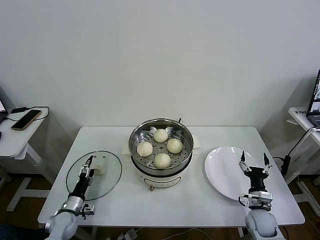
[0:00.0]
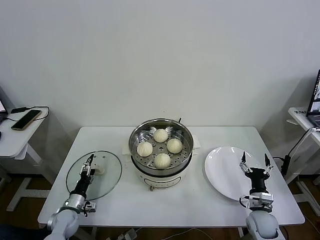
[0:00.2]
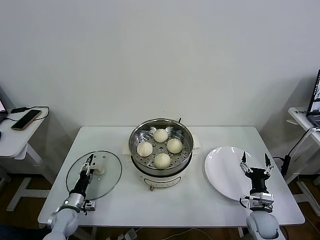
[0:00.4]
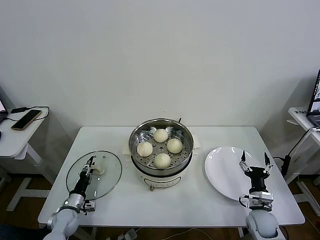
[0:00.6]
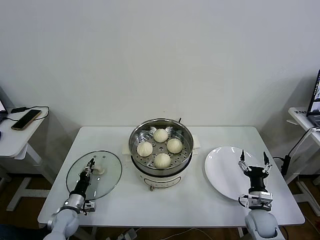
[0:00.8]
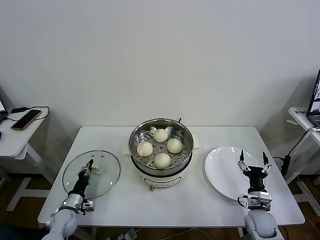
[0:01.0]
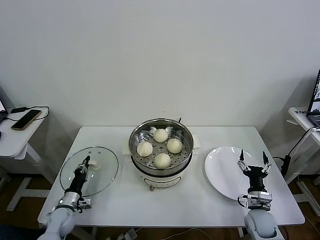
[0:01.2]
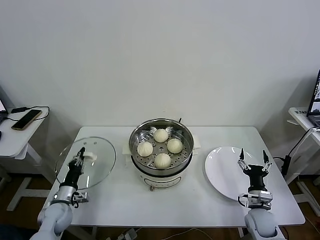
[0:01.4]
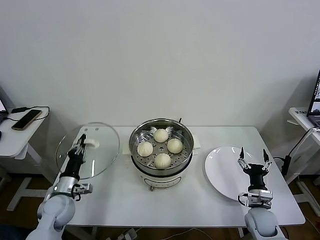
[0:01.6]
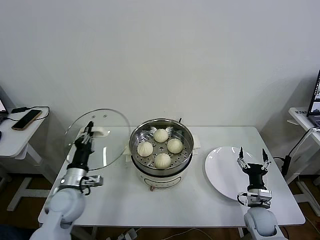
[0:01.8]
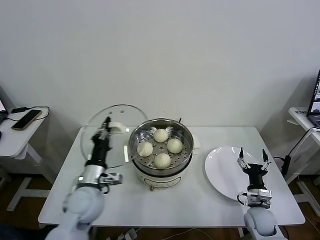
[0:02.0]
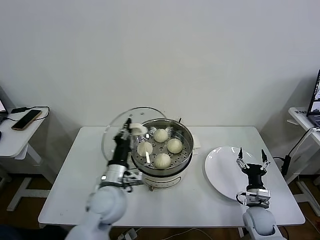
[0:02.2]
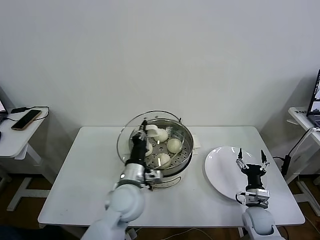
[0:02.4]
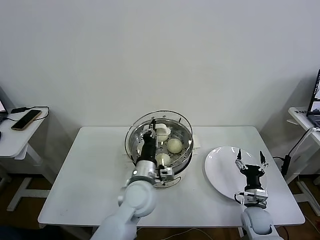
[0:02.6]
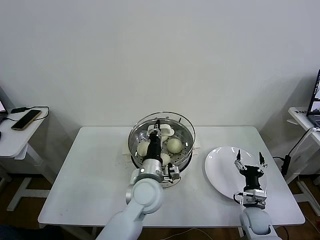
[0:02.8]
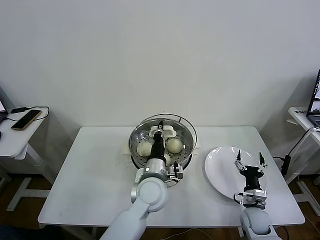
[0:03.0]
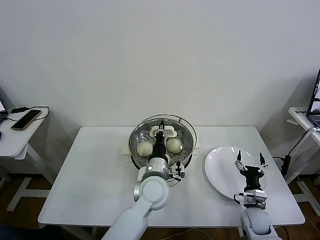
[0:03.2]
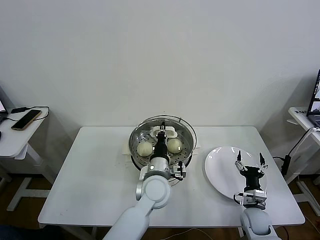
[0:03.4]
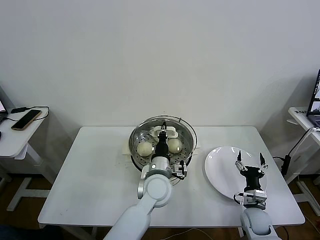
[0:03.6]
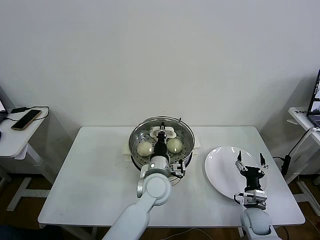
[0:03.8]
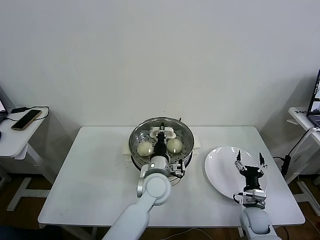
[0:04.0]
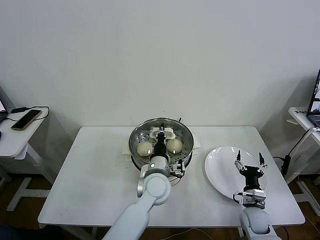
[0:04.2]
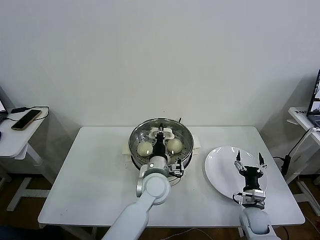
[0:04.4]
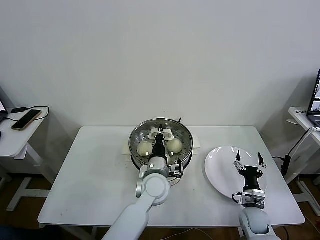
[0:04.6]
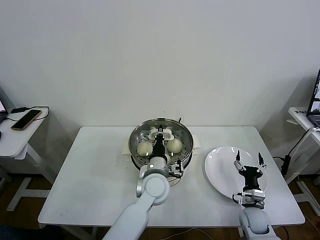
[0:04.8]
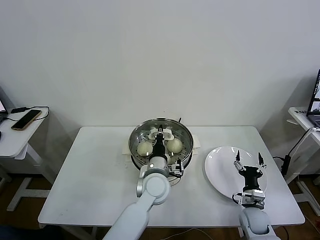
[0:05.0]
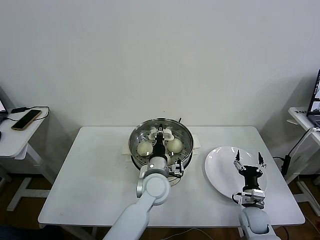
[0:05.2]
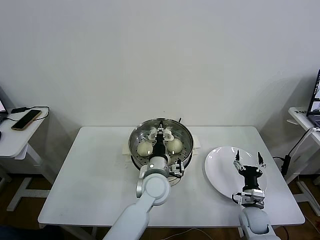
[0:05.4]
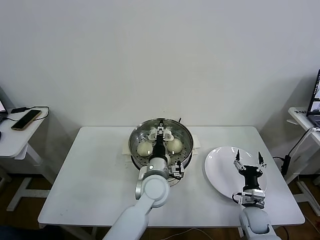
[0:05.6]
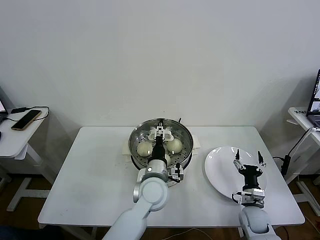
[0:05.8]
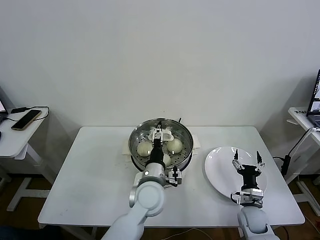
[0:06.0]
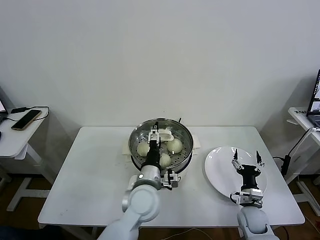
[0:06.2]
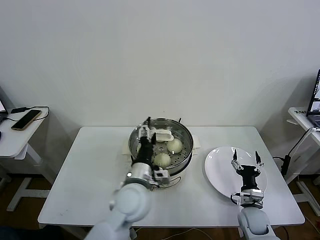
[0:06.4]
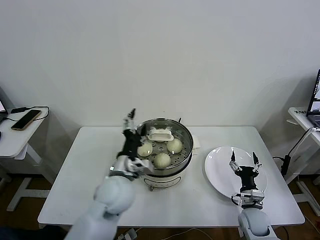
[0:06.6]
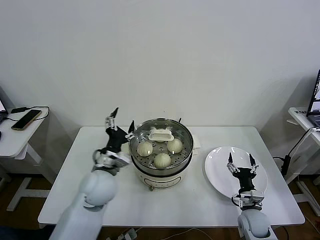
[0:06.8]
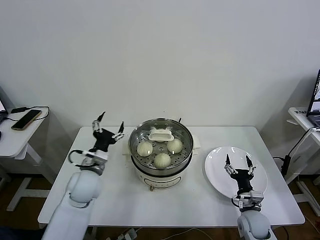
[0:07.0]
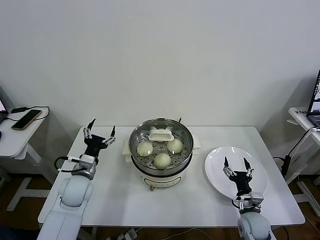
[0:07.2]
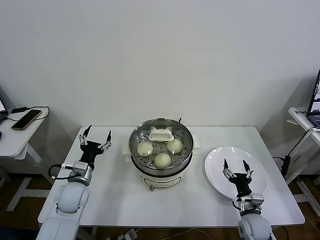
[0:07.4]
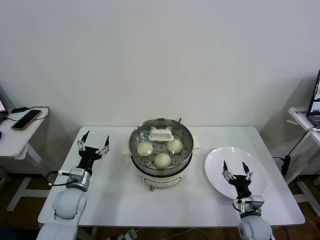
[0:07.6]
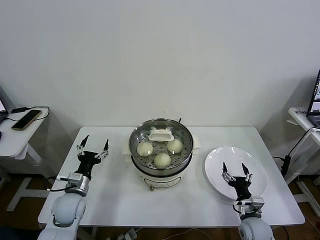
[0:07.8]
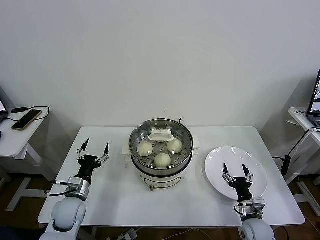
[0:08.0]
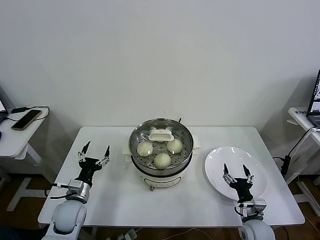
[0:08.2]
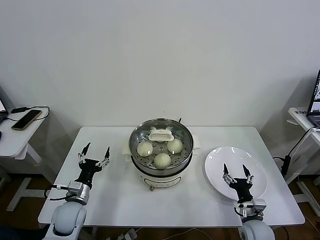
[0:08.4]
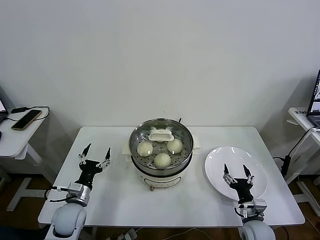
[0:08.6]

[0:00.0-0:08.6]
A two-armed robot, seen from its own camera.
Task of the whole recording: take steamed baozi put them in steamer then cover it.
Step, 0:01.0 to 0:05.4: Place the pot lid on the steamer with left gripper.
0:00.0 to 0:01.4: The left gripper closes its fingers.
0:01.4 to 0:02.8: The left gripper goes about 35 cm to the right and upward.
0:02.8 to 0:04.4: The left gripper moves approximately 5 cm.
0:04.4 to 0:05.8: The left gripper opens up.
0:05.8 to 0:07.2: The left gripper heads to the left, covering some 25 cm.
0:07.2 to 0:08.6: The left gripper is displaced downward and backward by roughly 10 cm.
